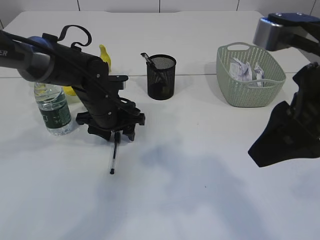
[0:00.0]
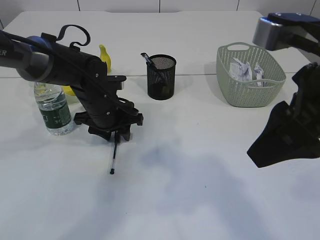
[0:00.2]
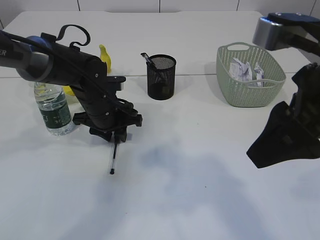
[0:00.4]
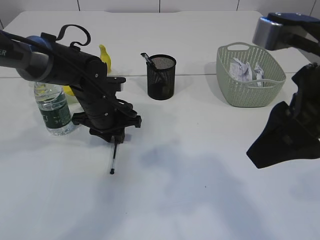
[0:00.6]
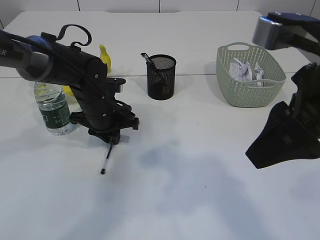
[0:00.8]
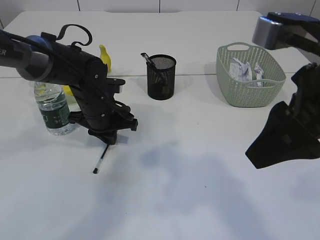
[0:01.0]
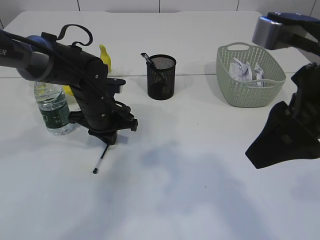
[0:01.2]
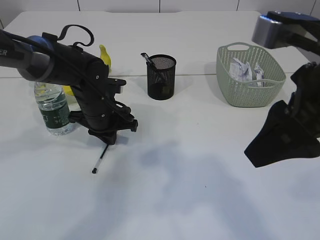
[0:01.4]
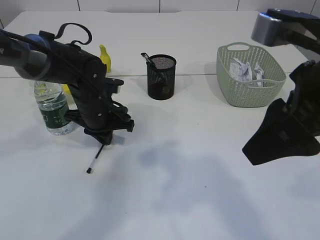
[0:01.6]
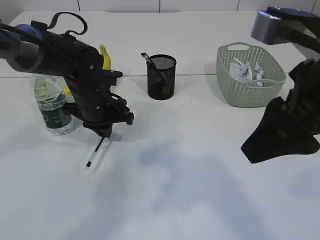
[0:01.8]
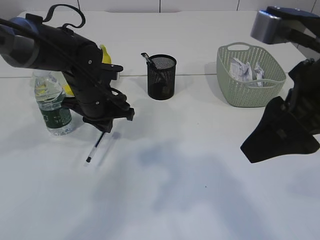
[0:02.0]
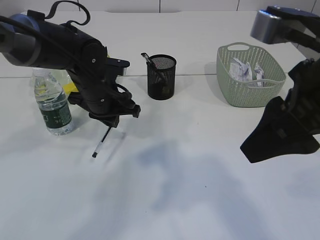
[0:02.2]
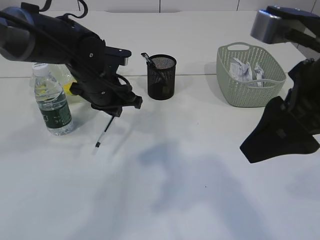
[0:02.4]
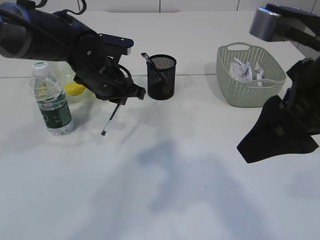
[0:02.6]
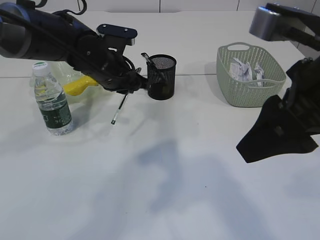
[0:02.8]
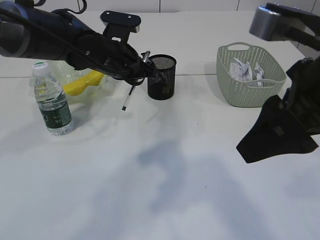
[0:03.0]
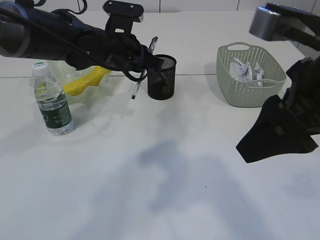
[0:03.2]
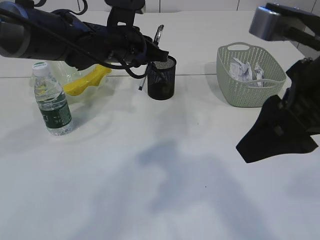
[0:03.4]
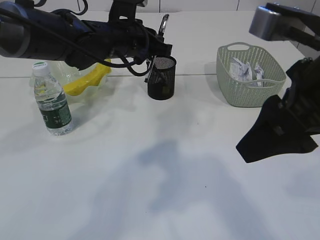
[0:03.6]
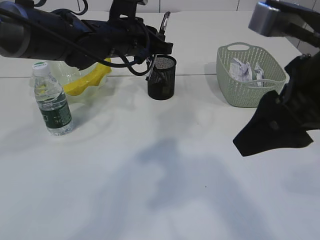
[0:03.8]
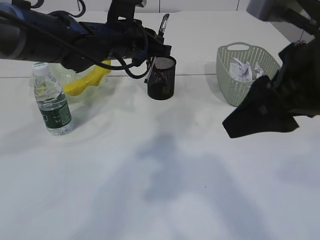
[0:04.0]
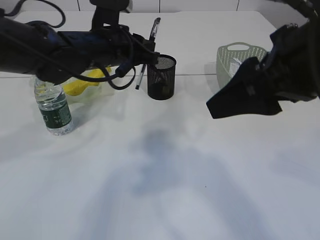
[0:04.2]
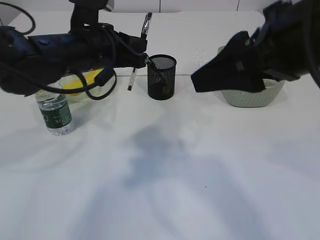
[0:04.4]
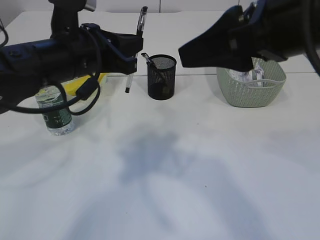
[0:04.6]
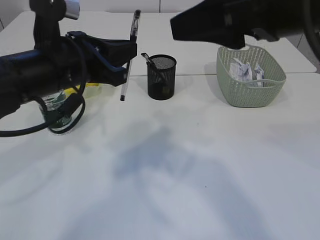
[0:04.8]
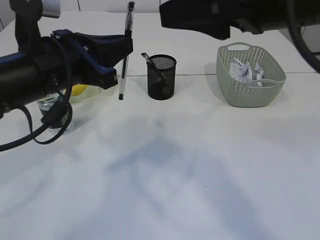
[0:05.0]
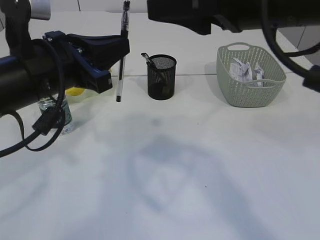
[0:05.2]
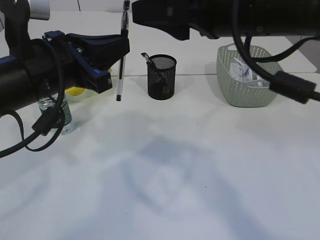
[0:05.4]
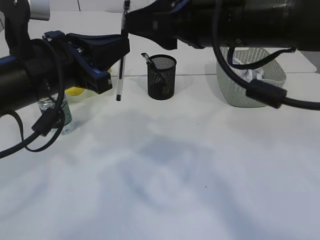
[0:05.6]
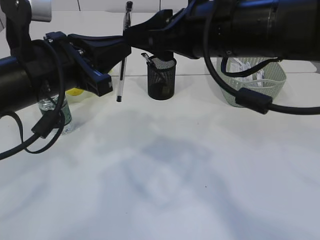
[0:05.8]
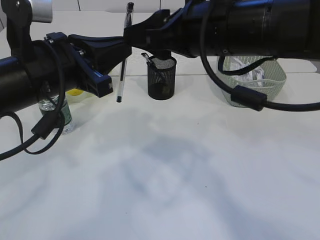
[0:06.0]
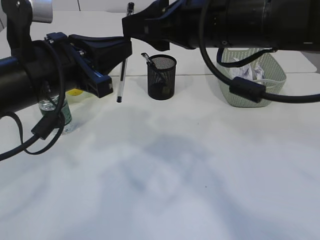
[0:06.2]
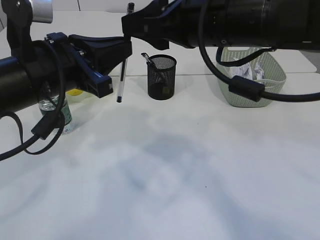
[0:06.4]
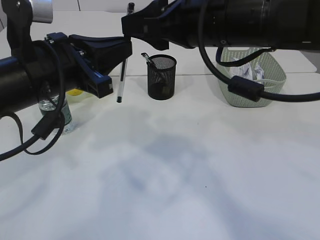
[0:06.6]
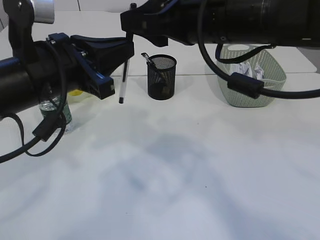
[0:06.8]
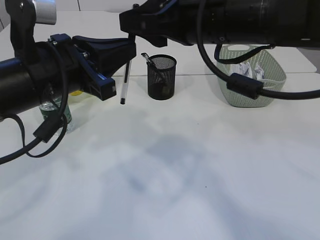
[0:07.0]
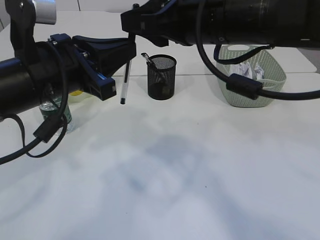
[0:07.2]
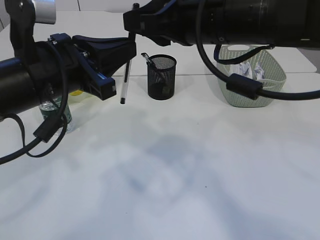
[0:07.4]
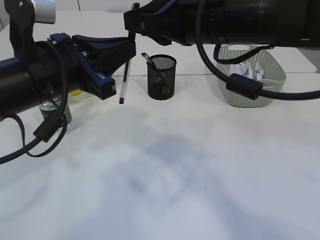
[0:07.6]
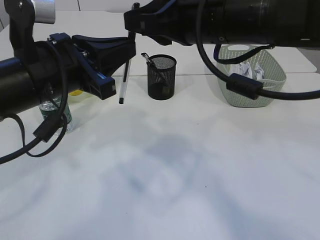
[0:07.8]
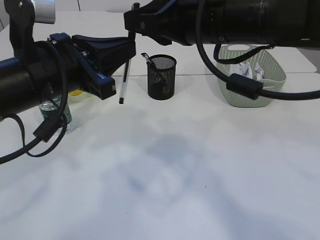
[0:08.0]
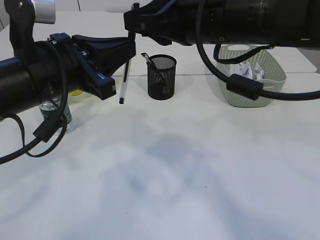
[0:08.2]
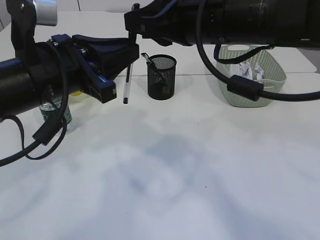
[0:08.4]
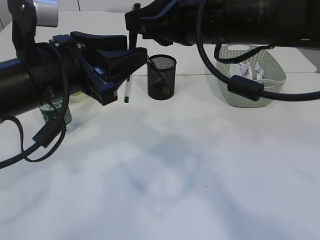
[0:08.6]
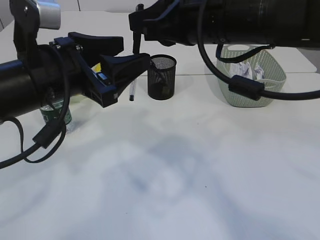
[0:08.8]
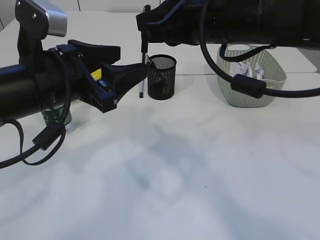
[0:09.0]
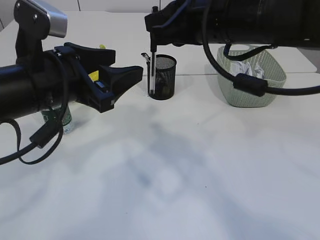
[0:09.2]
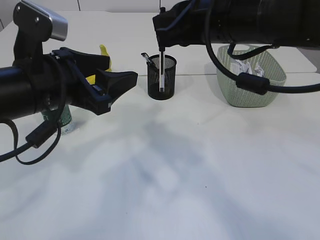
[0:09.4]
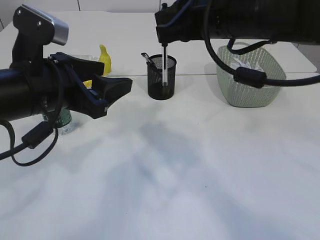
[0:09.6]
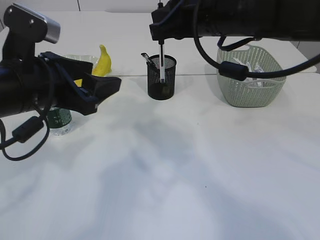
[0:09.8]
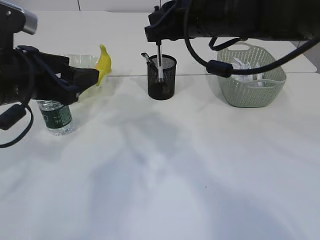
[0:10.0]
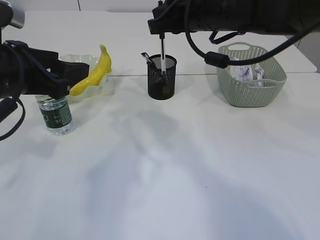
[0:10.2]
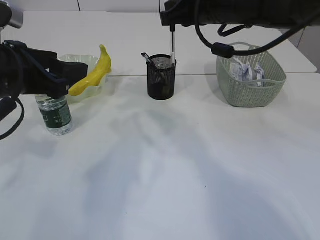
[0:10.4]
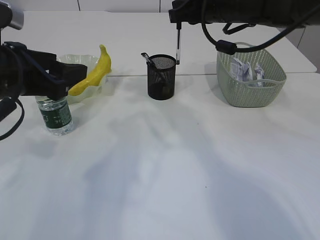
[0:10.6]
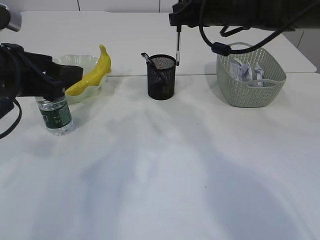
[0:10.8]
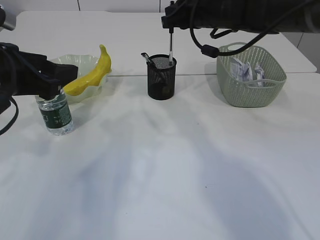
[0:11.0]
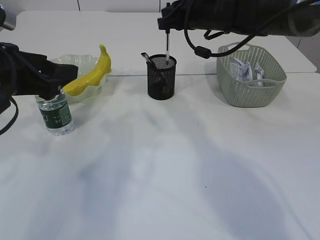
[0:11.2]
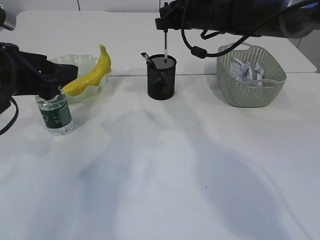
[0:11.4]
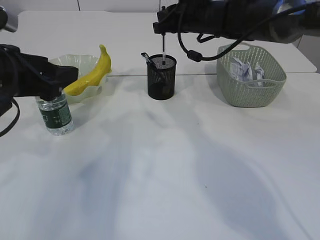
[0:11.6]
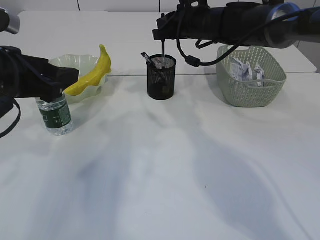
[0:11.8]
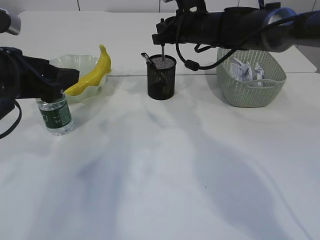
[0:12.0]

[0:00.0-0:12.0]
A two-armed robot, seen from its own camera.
Step, 0:00.0 to 0:02.4: Pick up the pen with left arm.
Step, 0:02.6 to 0:09.0: transfer the pen to the right arm.
0:00.0 to 0:01.6: The left gripper closes its fingers.
0:01.6 to 0:03.0: The left gripper heads upward, covering some 10 cm.
0:03.0 to 0:04.4: The left gripper is displaced backward by approximately 5 cm.
0:04.4 to 0:06.0: The right gripper goes about 10 cm forward and to the left; the left gripper is displaced backward by some 10 cm.
0:06.0 to 0:07.6: The right gripper closes.
0:07.6 to 0:09.0: The left gripper opens up.
0:09.0 to 0:10.4: The right gripper travels forward by roughly 10 cm, while the left gripper travels to the left by roughly 5 cm.
0:10.4 to 0:12.0: The right gripper heads forward and downward, covering some 15 cm.

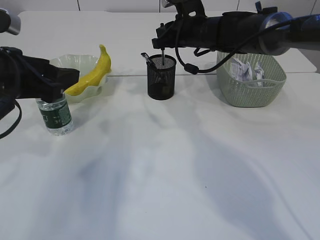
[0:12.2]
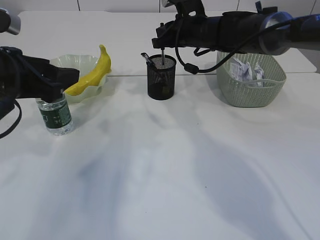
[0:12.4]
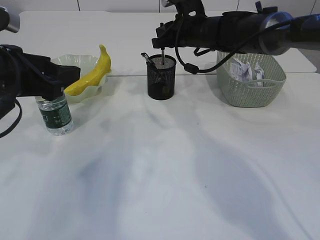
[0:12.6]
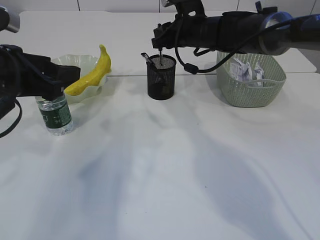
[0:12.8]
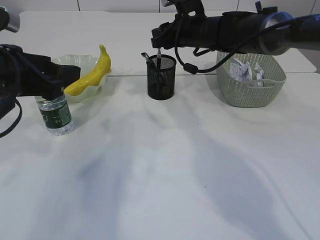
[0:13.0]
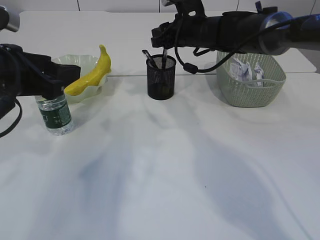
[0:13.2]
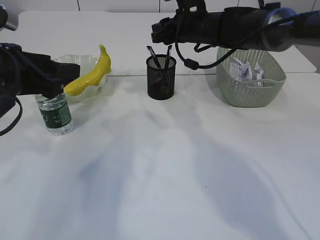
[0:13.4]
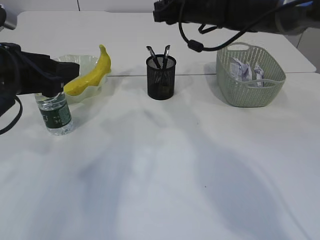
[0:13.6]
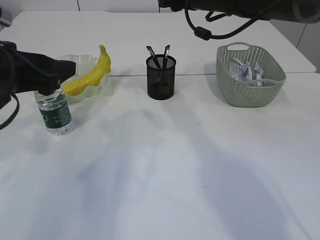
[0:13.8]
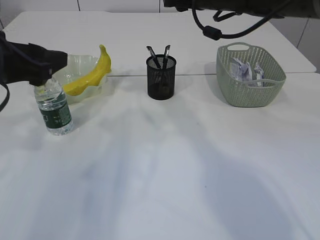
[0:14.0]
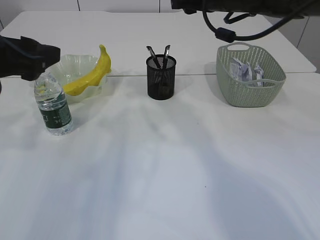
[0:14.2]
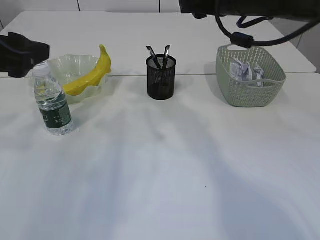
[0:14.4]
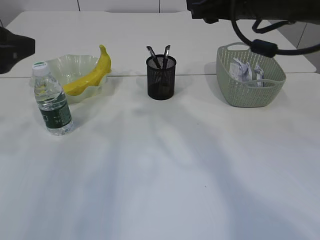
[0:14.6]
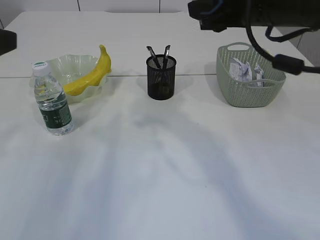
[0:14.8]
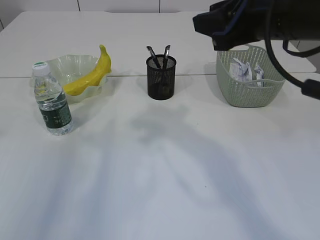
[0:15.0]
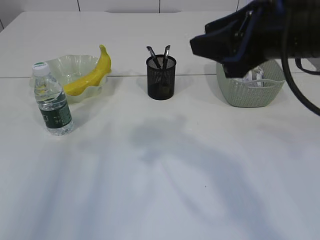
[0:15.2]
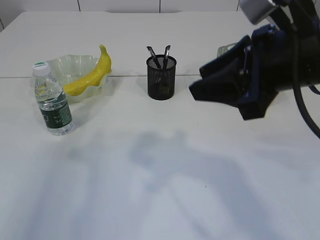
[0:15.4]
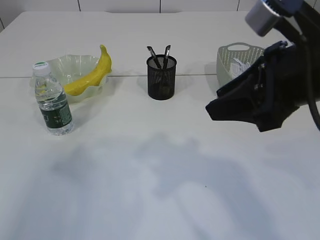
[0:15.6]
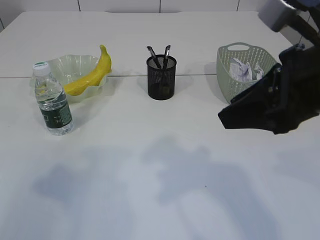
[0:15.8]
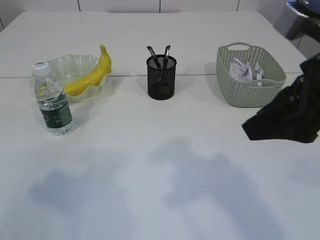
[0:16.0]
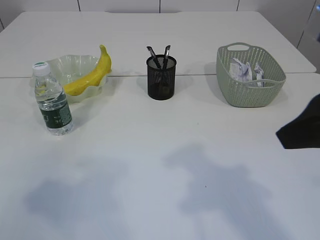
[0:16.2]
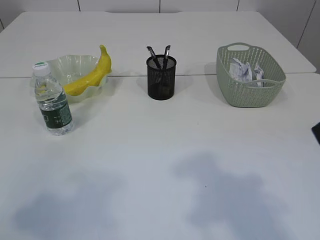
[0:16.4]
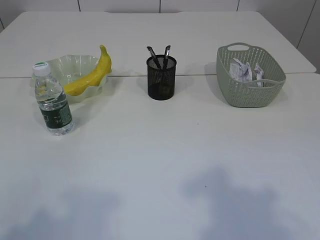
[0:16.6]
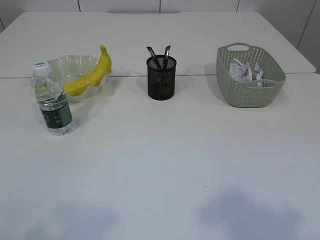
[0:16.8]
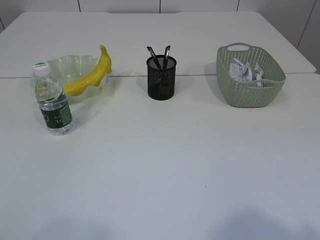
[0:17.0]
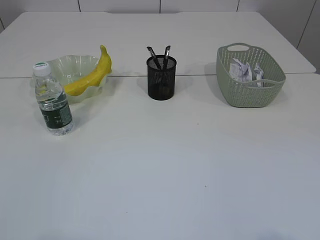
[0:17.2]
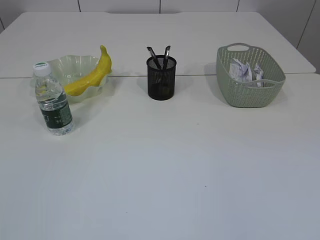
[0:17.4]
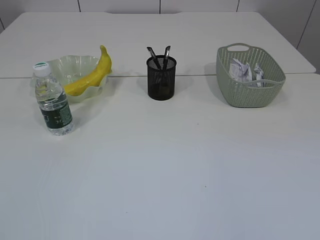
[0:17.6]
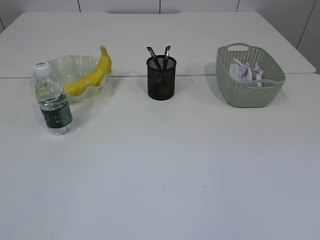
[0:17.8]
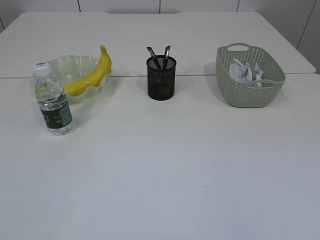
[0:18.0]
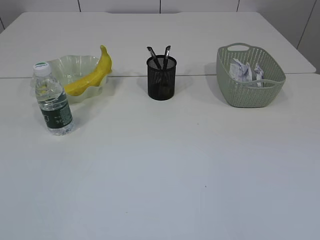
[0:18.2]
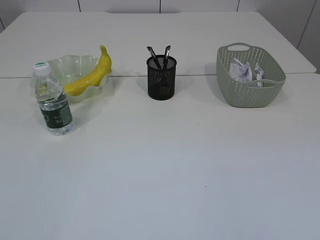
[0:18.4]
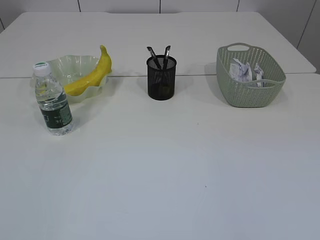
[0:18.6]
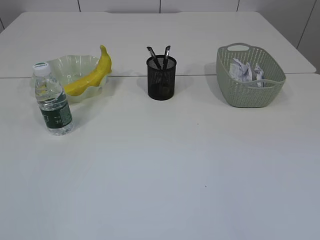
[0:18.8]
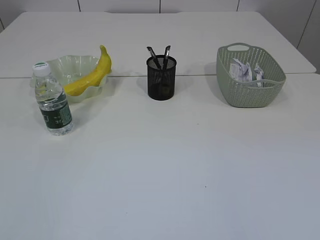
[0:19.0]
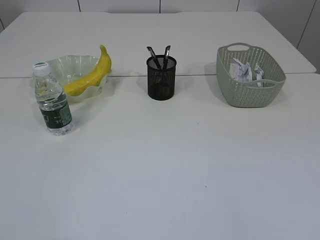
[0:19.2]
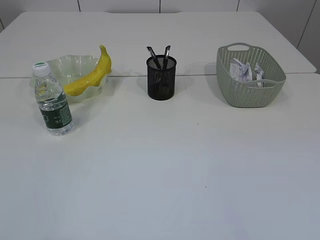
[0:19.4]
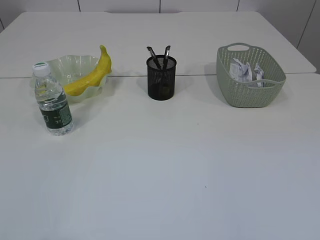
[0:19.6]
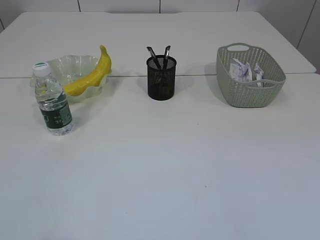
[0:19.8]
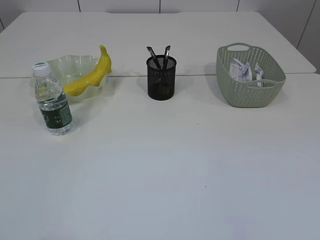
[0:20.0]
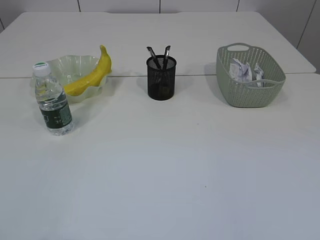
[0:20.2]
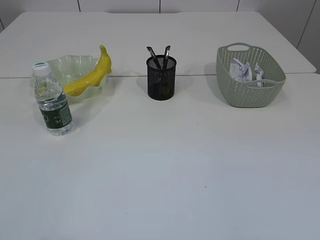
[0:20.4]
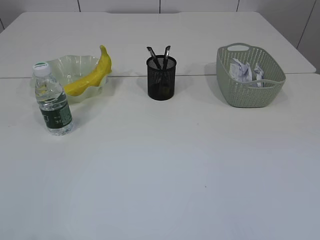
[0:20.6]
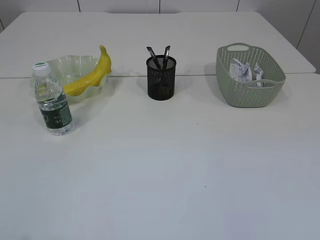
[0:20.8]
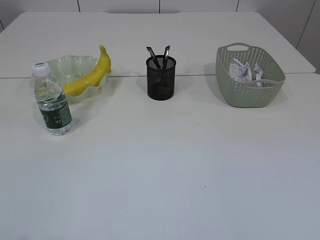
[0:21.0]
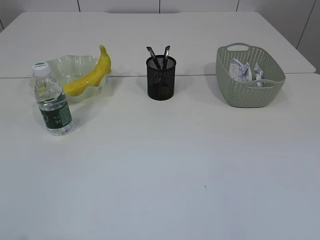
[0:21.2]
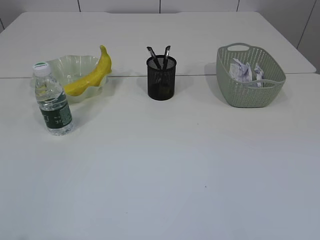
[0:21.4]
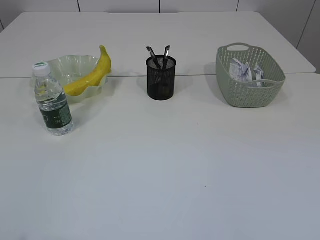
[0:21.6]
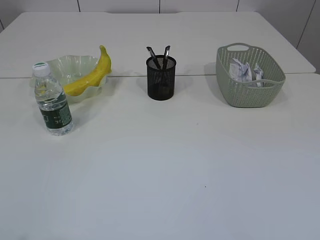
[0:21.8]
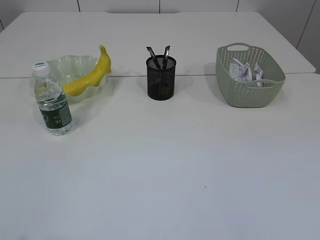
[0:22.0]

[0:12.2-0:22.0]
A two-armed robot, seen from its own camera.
0:12.2 to 0:13.6: The right gripper changes place by approximately 5 cm, and opens up.
0:13.6 to 0:15.0: The left gripper travels upward and backward by some 10 cm. Meanwhile the right gripper is displaced backward by about 20 cm.
0:15.0 to 0:16.4: The right gripper shifts approximately 15 cm backward and to the right; the left gripper travels backward by roughly 10 cm.
0:16.4 to 0:17.8: The left gripper moves backward, some 15 cm.
